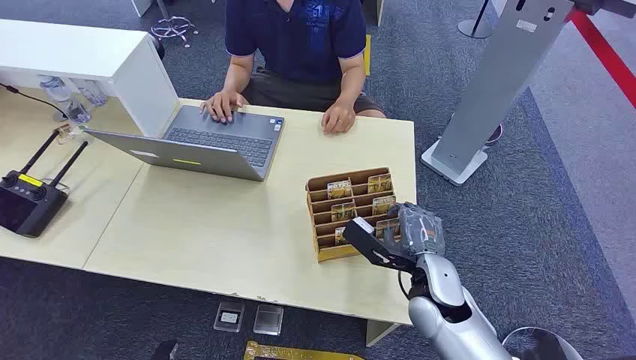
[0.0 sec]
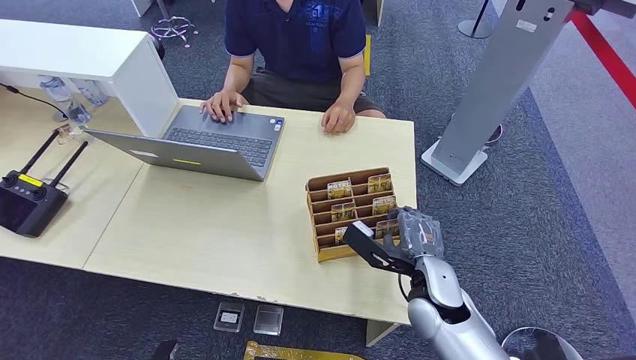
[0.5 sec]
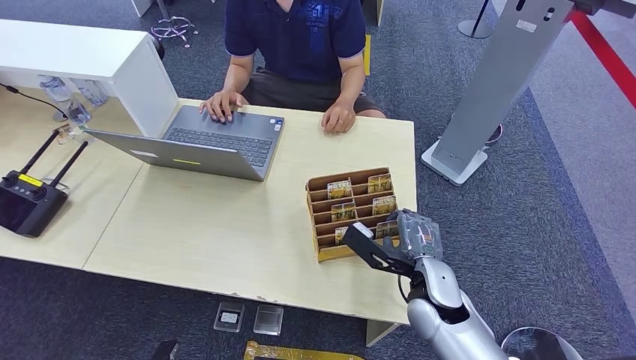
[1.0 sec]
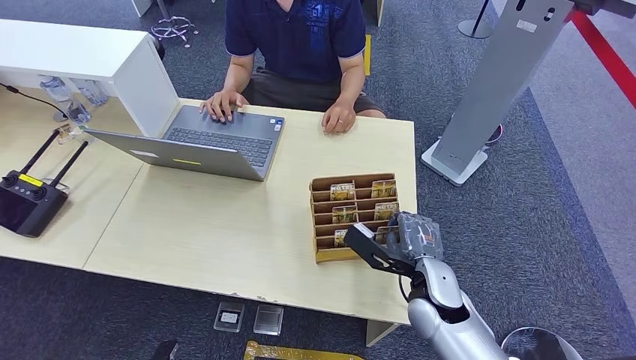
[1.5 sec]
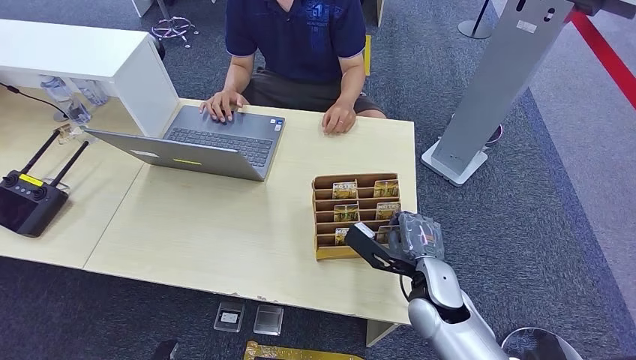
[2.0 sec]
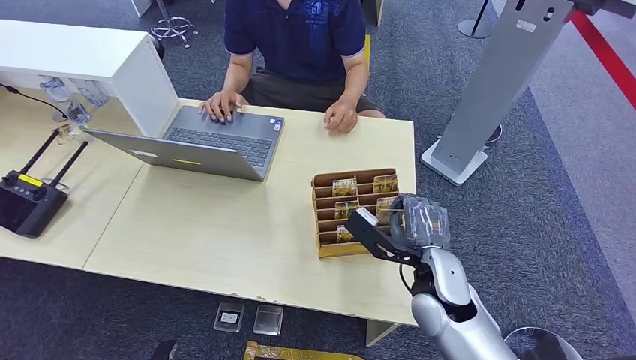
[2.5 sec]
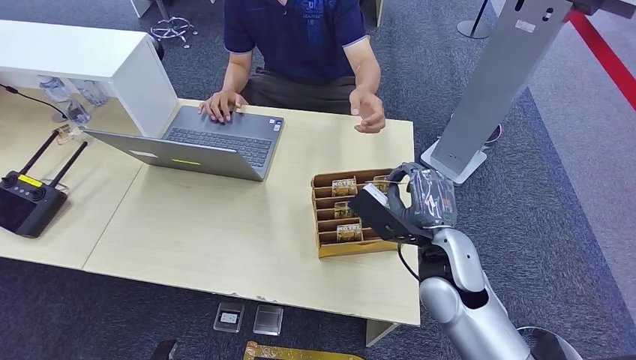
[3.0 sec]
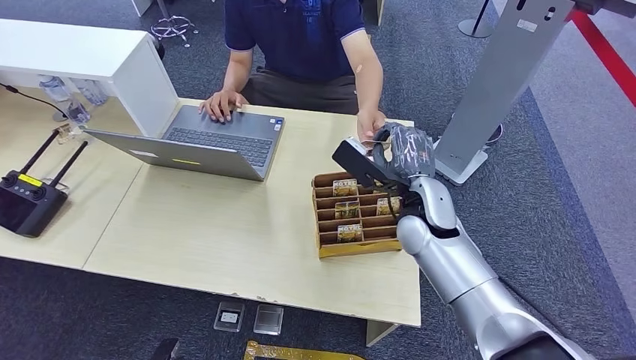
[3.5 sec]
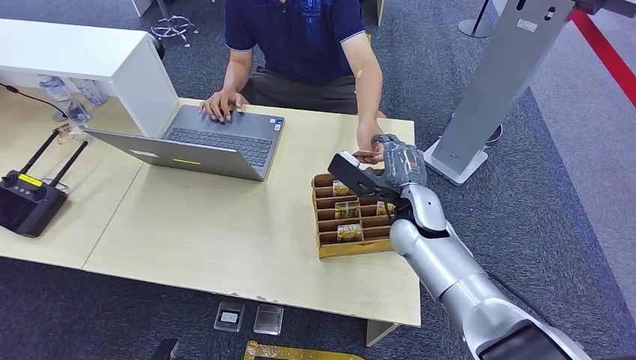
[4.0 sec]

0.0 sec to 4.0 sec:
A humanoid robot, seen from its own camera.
Step, 0.0 sec to 2.5 sec: Pick up the room card from the card holder.
Step, 3.5 sec to 4.0 sec: Hand the room card to the target.
2.0 sec to 4.0 sec: The right hand moves forward and upward, approximately 10 cm.
